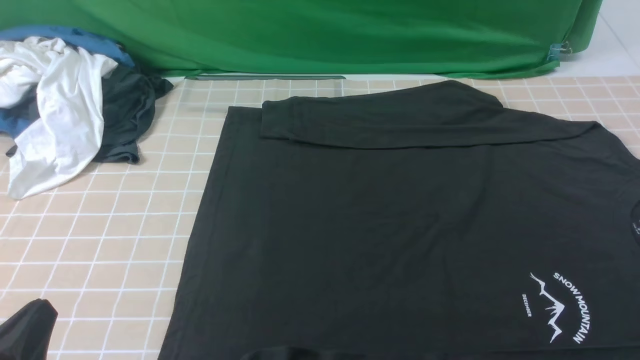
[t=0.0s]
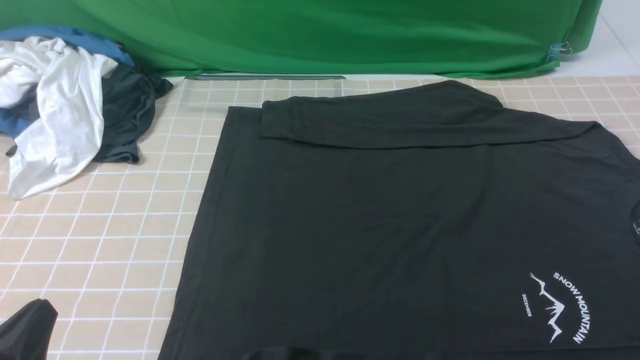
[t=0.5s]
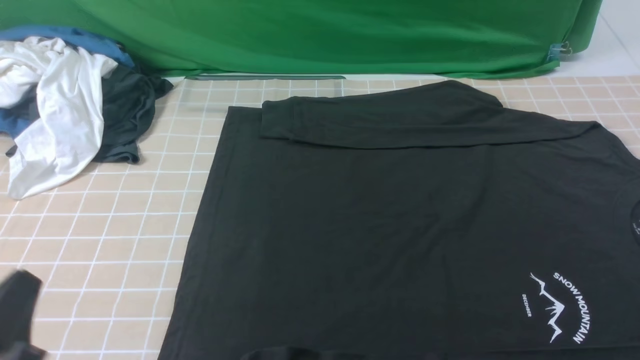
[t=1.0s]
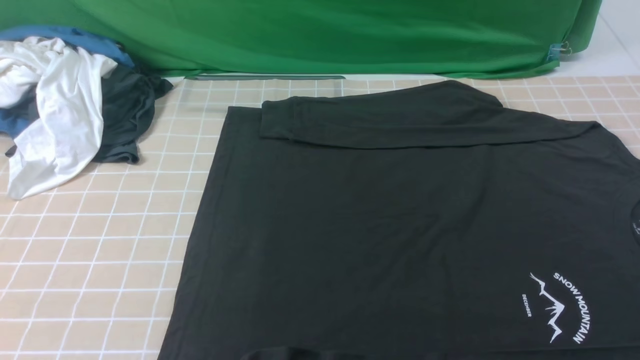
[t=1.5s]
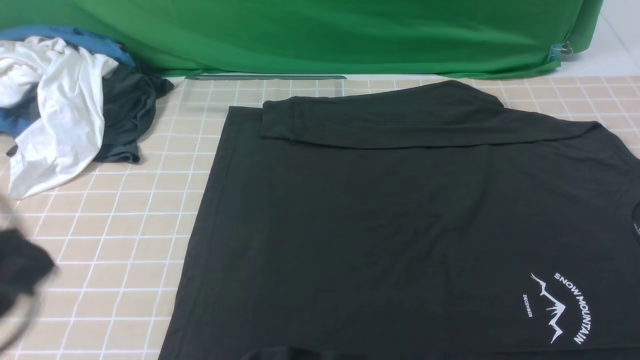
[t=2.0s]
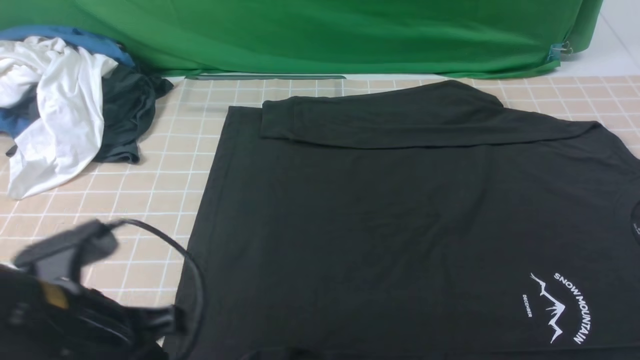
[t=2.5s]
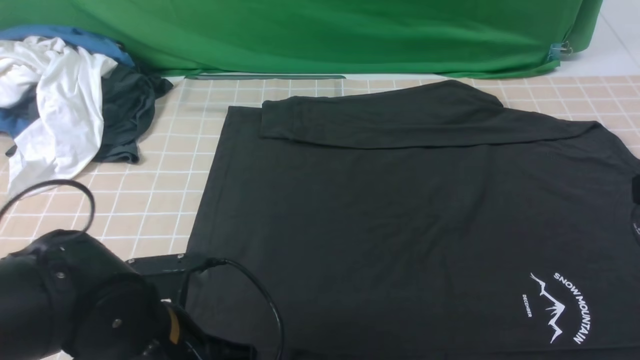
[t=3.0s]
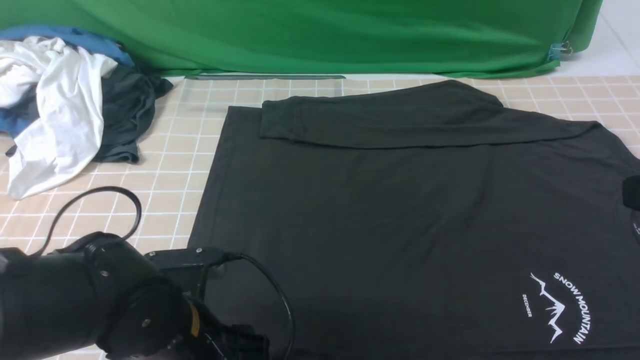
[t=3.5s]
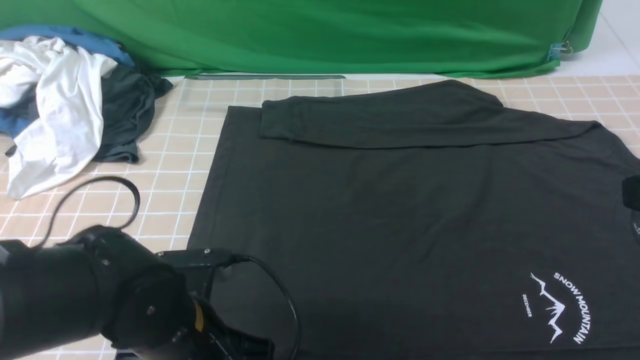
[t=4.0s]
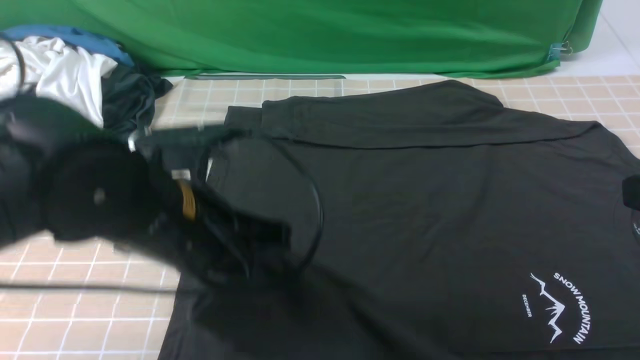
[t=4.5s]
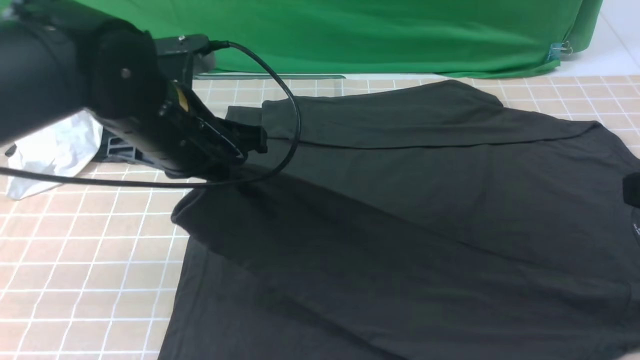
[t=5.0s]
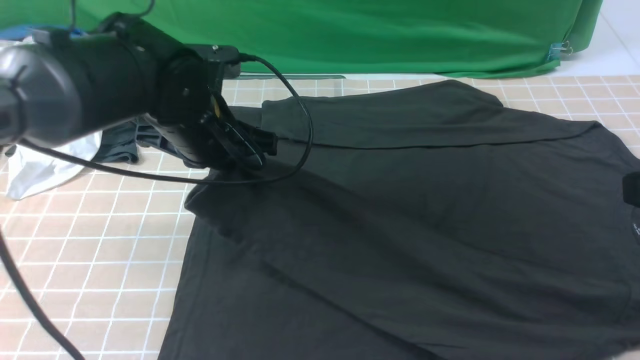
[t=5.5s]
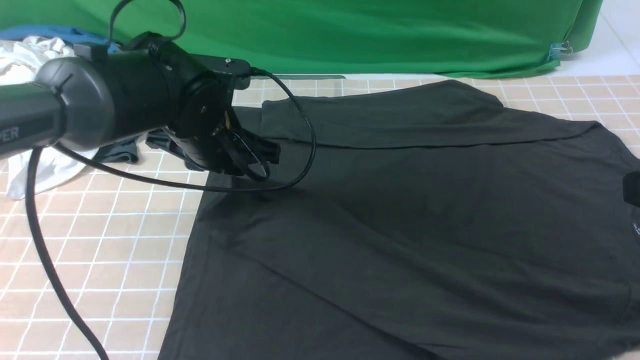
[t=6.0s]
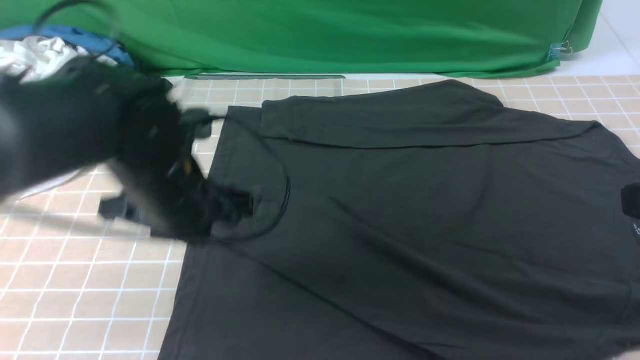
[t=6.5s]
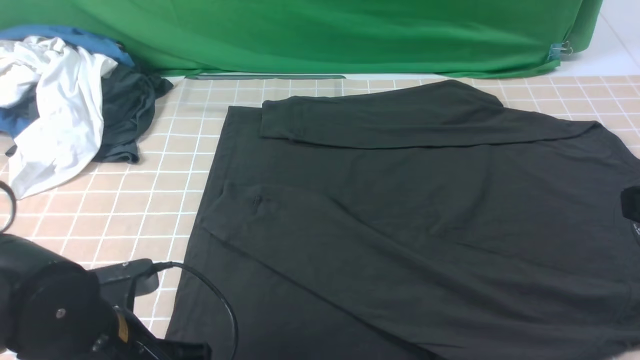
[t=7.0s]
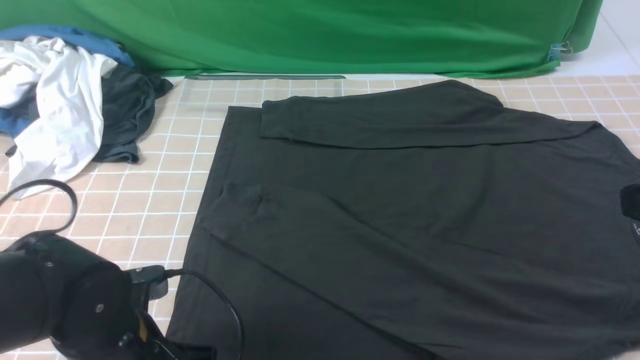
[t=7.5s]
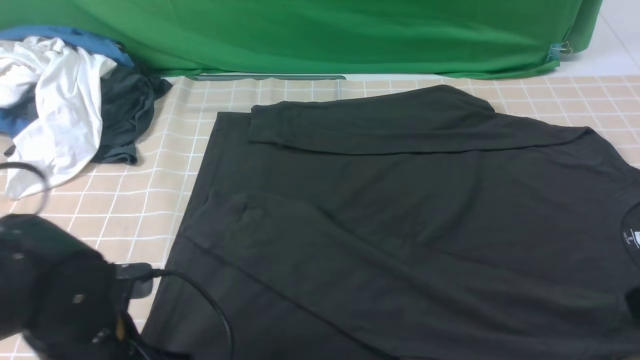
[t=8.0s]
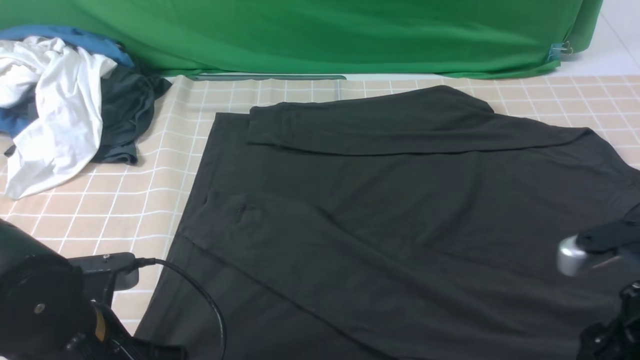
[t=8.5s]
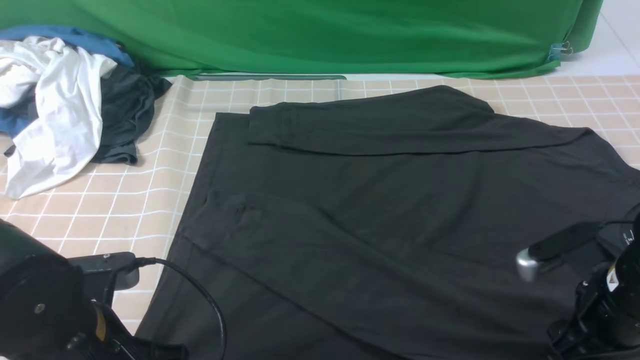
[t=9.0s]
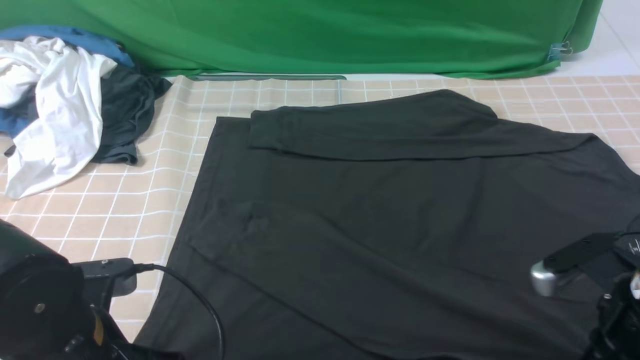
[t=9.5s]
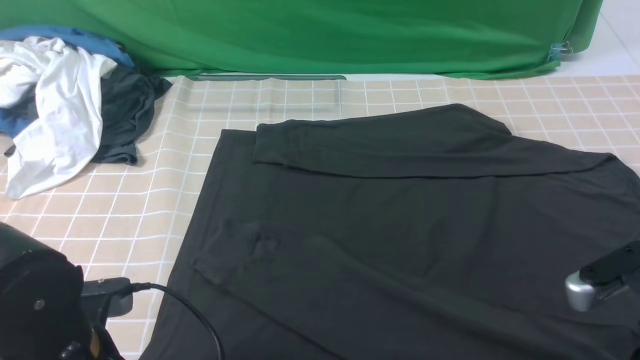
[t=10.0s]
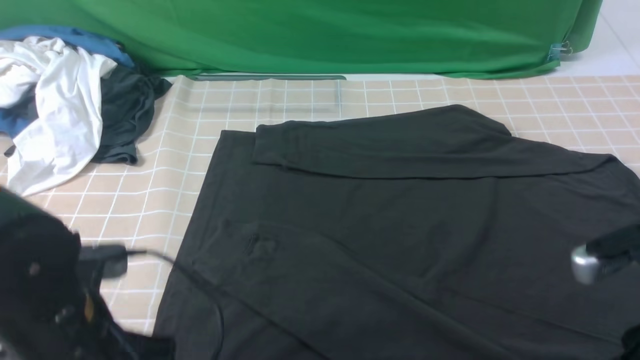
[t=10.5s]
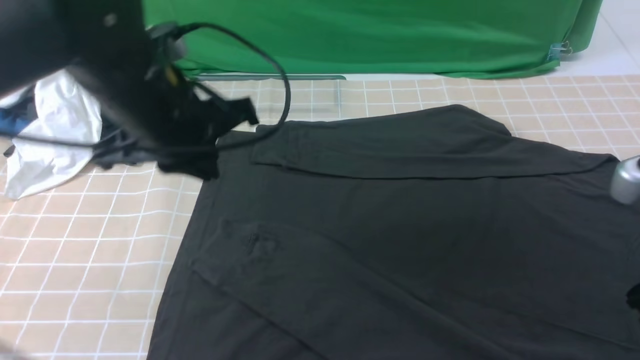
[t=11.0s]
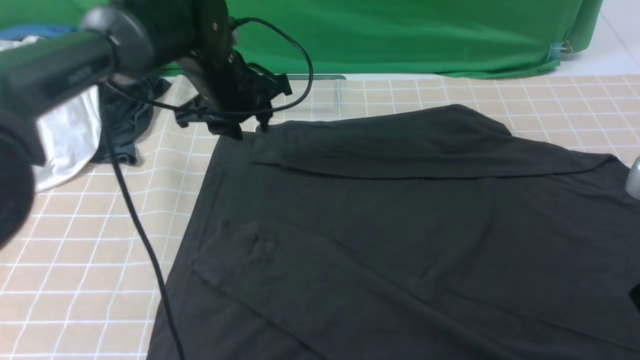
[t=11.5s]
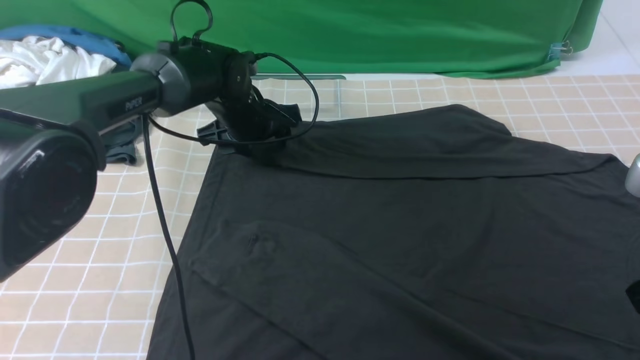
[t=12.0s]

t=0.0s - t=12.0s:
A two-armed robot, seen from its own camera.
Step, t=0.0s - t=4.0s: use the left arm to clamp the cuff closest to it.
Step, t=4.5s - t=6.0s: use the left arm to drag and place the cuff at the centered position on the left edge of the fabric.
Step, t=6.5s - t=12.0s: use the left arm to clamp the cuff farthest from it.
t=0.0s - t=2.0s: The left gripper shifts approximately 10 cm upward.
t=2.0s - t=4.0s: The right gripper moves forward and upward, roughly 15 cm. The left gripper moves downward, to the right and forward, some 20 cm, and opens, then closes again.
t=4.0s - t=6.0s: The left gripper moves forward, approximately 15 cm.
t=6.0s - t=8.0s: The left gripper is displaced backward by roughly 20 cm, and closes up.
t=8.0s - t=10.0s: The right gripper moves downward, roughly 10 cm, and opens, then closes once more.
t=10.0s - t=12.0s: The left gripper is displaced forward by roughly 35 cm, and opens up, while the right gripper moves upward, some 10 cm.

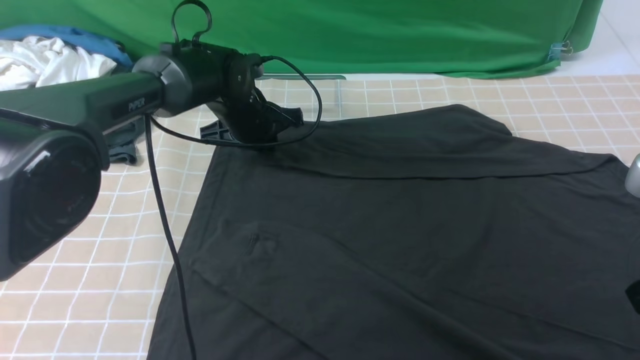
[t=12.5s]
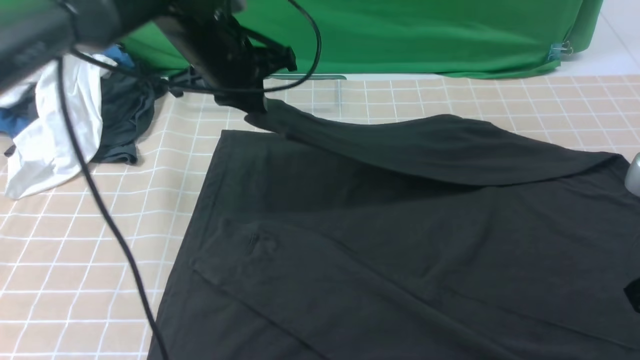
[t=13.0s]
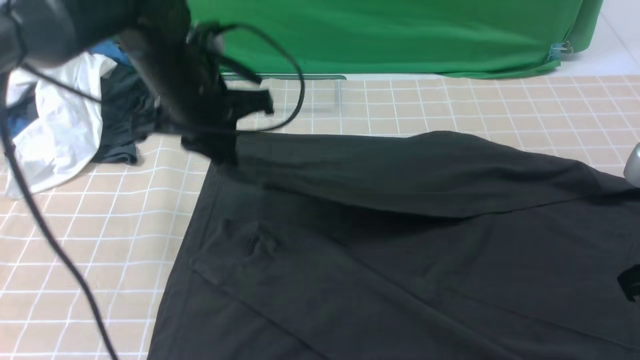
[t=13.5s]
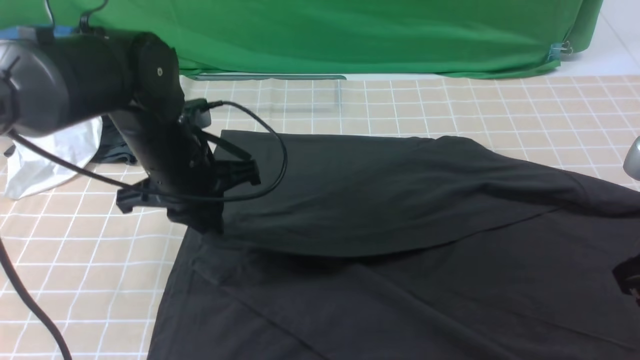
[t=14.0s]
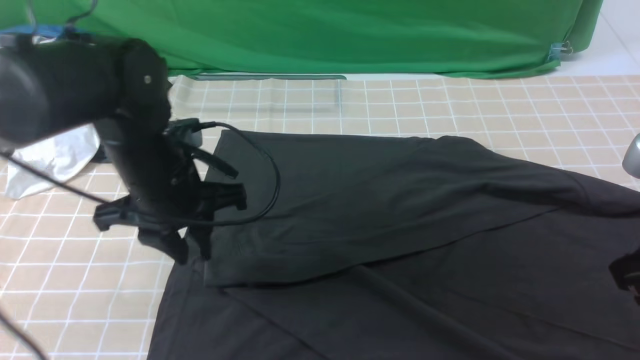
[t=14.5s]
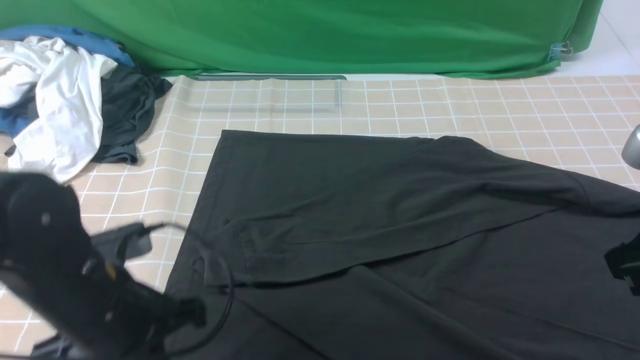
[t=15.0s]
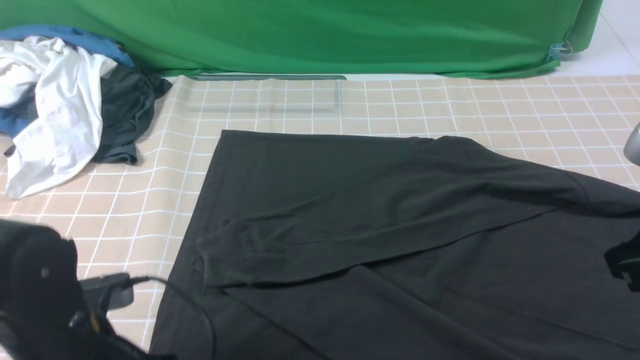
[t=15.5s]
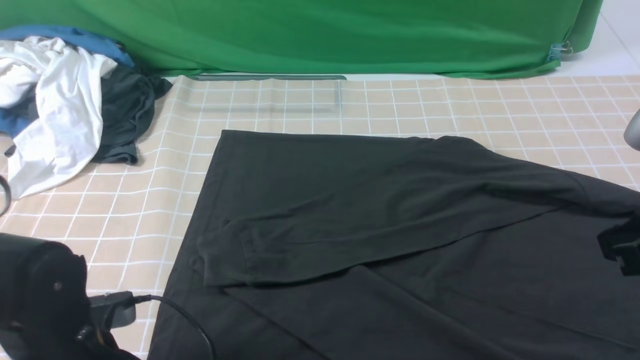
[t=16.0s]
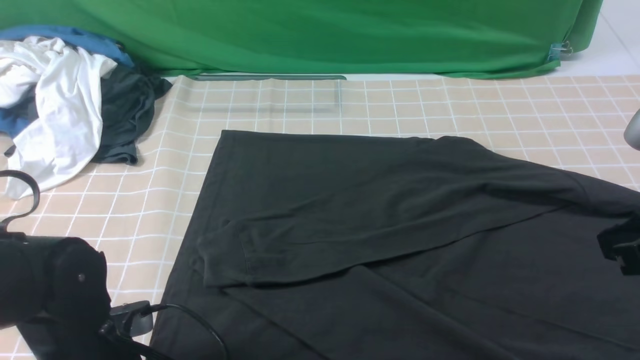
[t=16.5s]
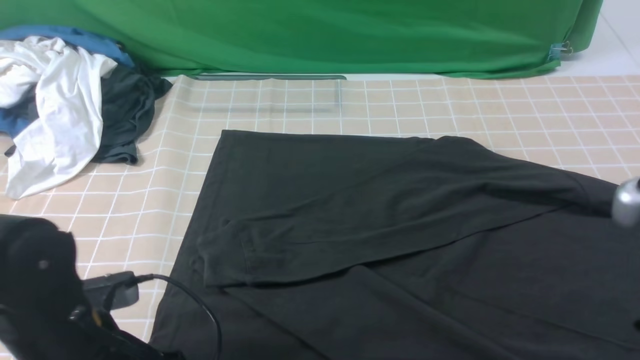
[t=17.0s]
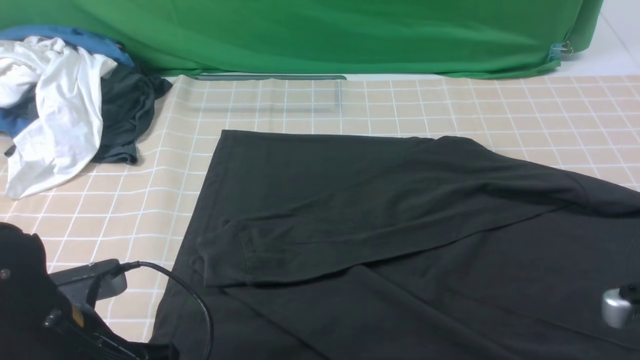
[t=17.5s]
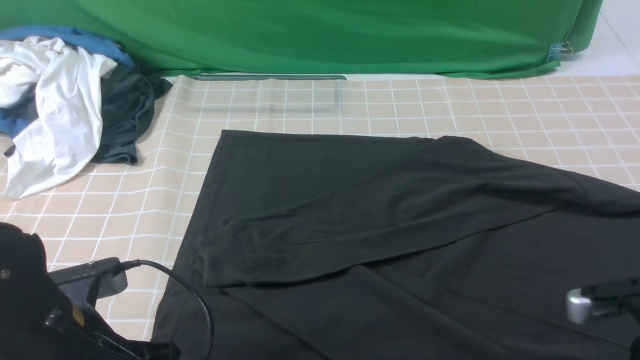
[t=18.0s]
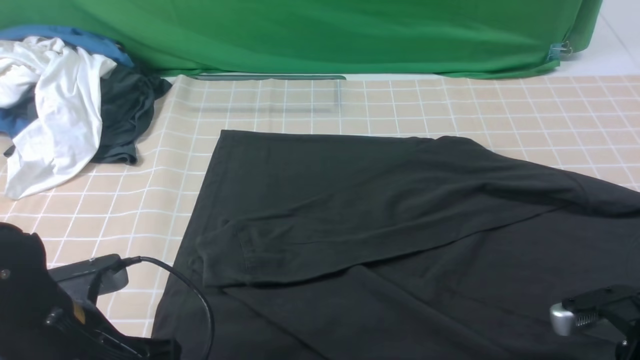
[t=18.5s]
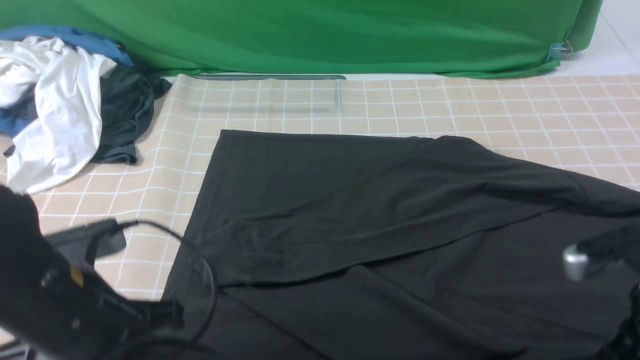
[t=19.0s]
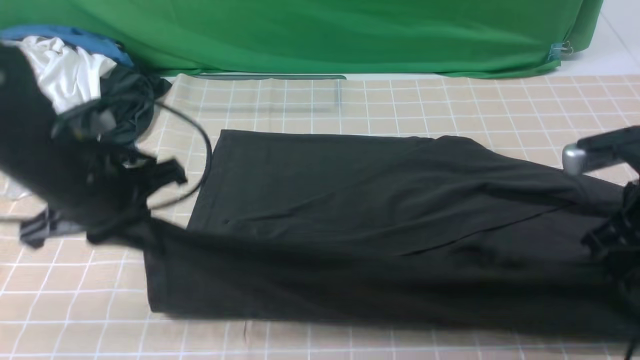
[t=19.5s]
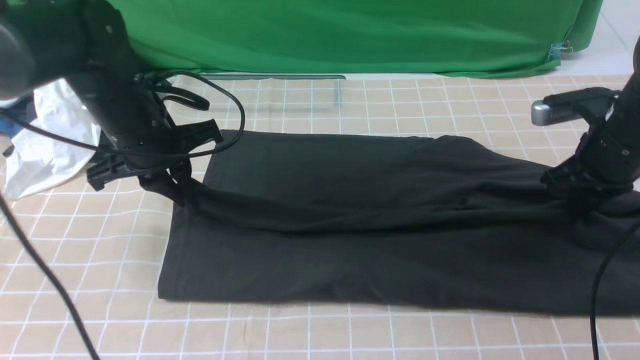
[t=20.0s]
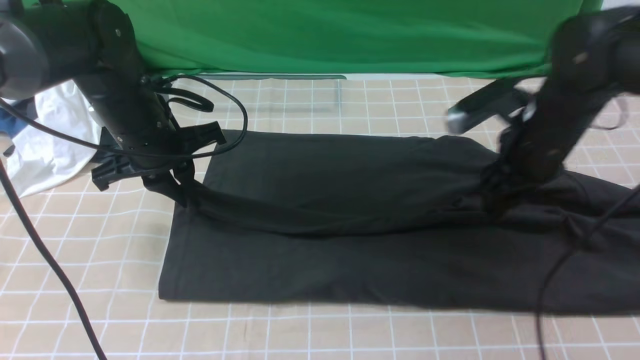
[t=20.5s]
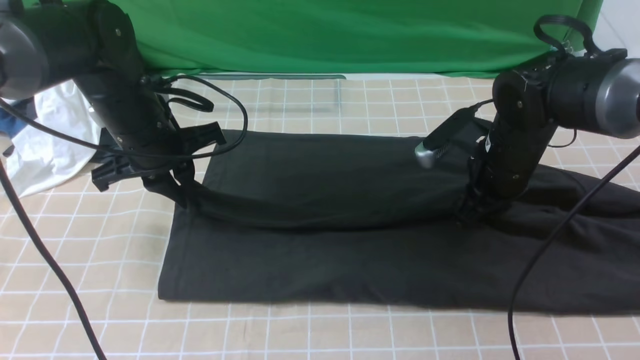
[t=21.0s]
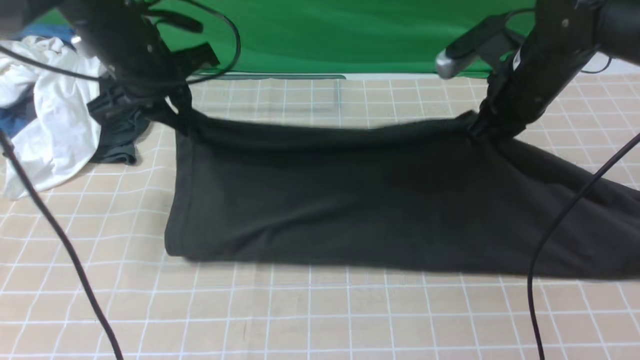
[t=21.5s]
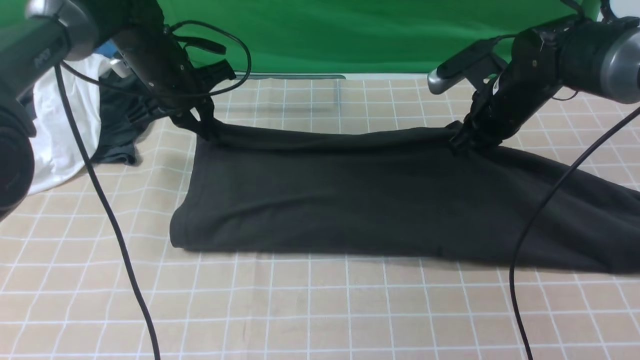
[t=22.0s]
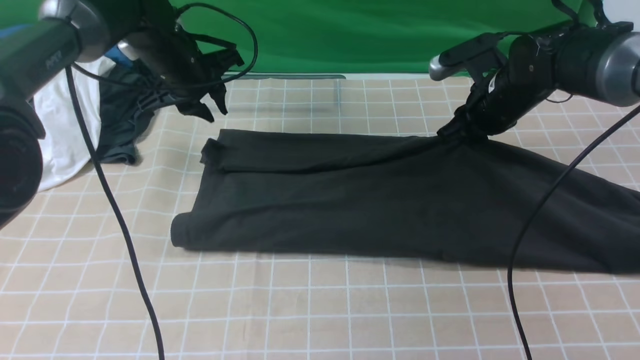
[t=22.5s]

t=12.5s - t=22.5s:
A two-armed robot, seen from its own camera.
Step, t=12.5s - t=14.5s: use the left arm to drag and drop the cuff onto the cuff closest to the left arm.
Step, t=15.0s - t=19.0s: use both arms simultaneously to clamp the lower edge of the clothing fabric.
t=12.5s - t=14.5s: The left gripper travels backward by roughly 20 cm.
t=14.5s - t=16.5s: The left gripper moves backward and downward, approximately 15 cm, and opens and closes again.
t=16.5s - t=18.5s: The left gripper is displaced upward by approximately 5 cm, while the right gripper heads downward, covering some 15 cm, and opens, then closes once more.
t=18.5s - t=20.5s: The two grippers go about 20 cm forward. The right gripper opens.
t=20.5s - t=22.5s: The grippers both shift forward by approximately 10 cm.
